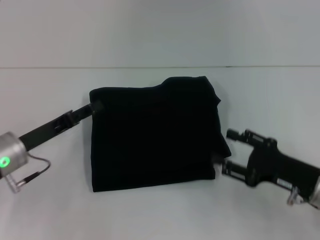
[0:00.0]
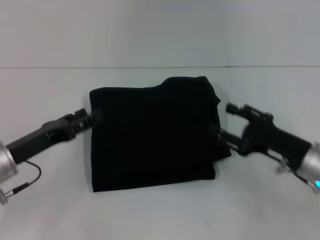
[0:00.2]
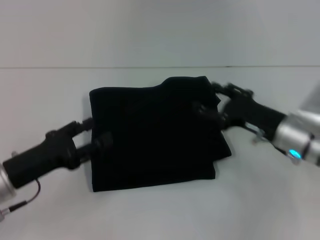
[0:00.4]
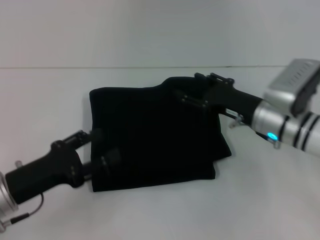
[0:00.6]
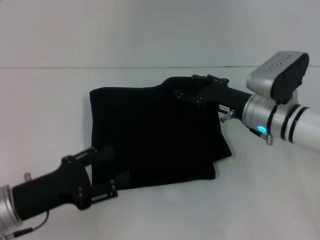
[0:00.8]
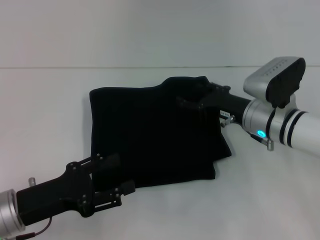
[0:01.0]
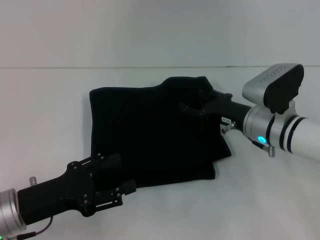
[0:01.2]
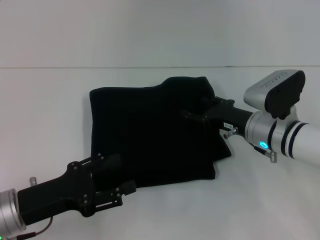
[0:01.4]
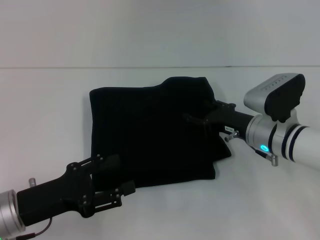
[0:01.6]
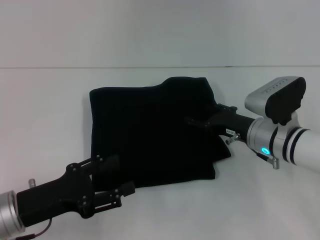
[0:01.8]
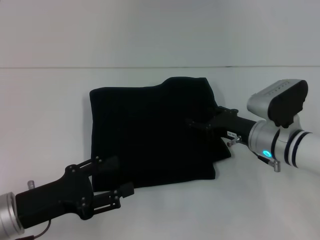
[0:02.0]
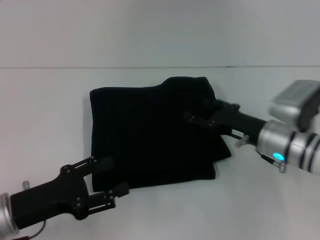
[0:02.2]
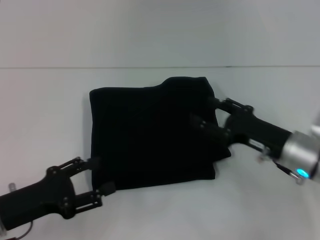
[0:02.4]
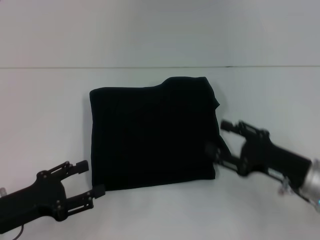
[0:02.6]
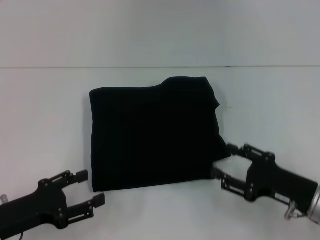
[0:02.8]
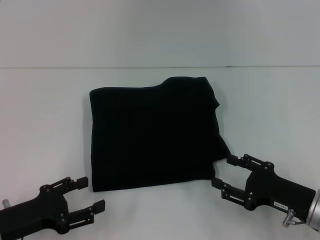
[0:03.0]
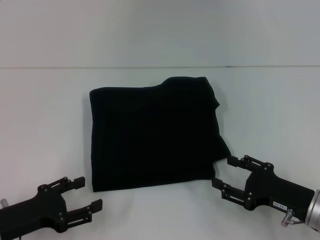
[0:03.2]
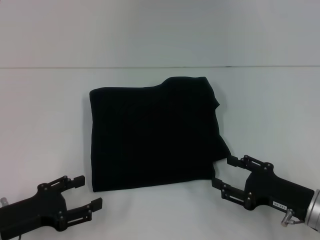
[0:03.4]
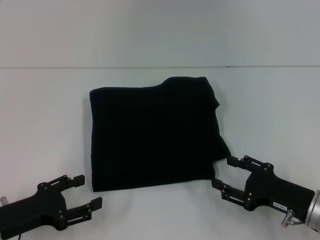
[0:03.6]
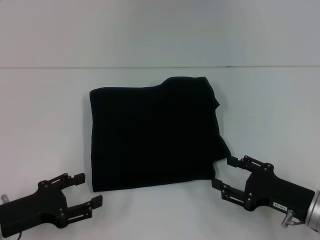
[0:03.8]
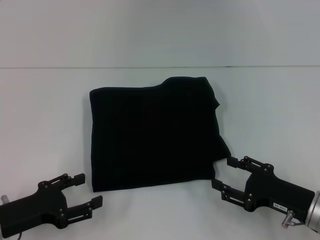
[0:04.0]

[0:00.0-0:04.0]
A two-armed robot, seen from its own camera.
0:00.0 to 0:01.4: The left gripper goes approximately 10 cm backward, and opens; the right gripper shifts some 15 cm forward and to the left.
0:01.4 to 0:02.6: The right gripper goes some 10 cm backward and to the right.
0:02.6 to 0:04.0: The grippers make only small movements.
